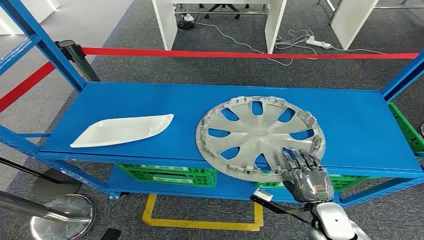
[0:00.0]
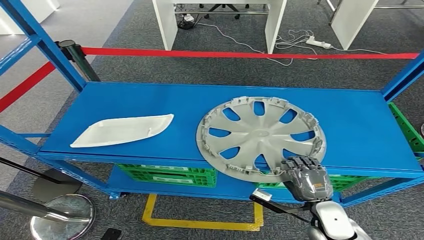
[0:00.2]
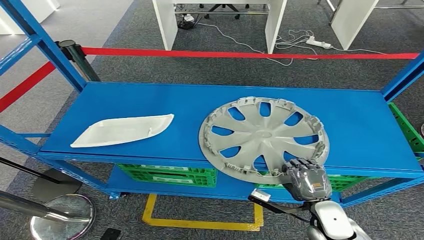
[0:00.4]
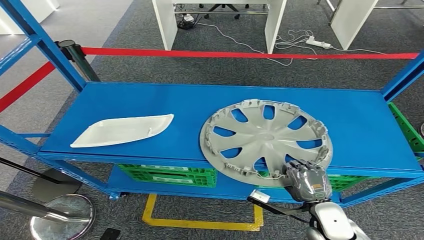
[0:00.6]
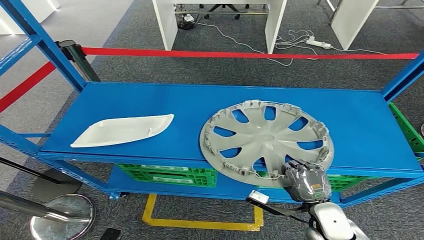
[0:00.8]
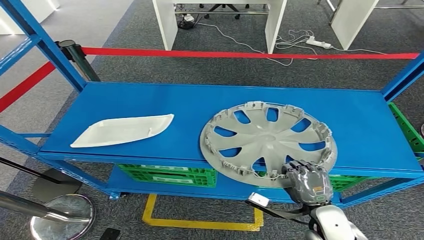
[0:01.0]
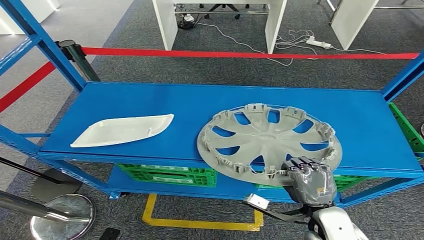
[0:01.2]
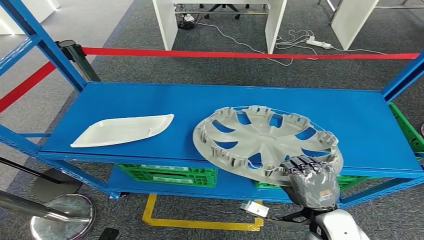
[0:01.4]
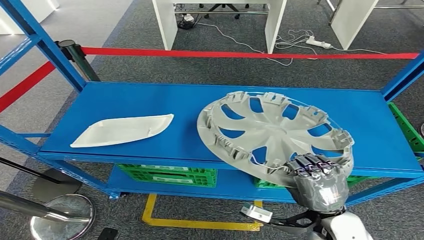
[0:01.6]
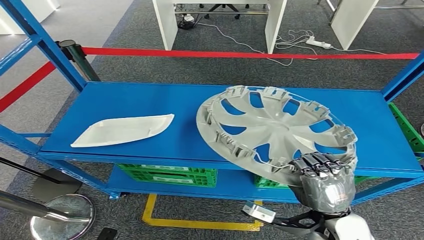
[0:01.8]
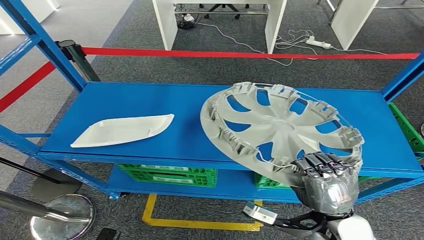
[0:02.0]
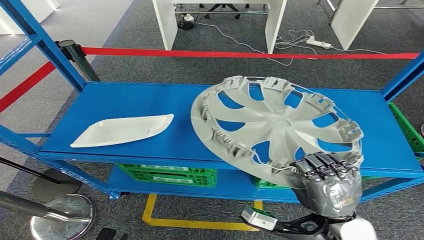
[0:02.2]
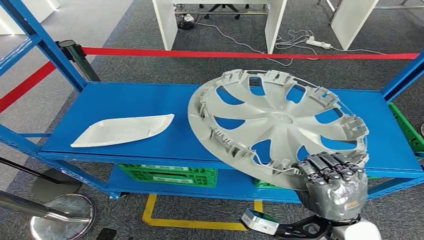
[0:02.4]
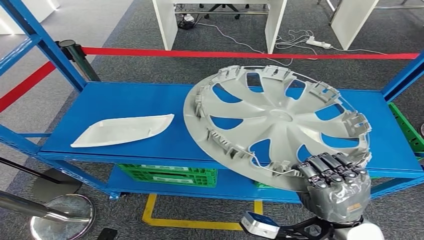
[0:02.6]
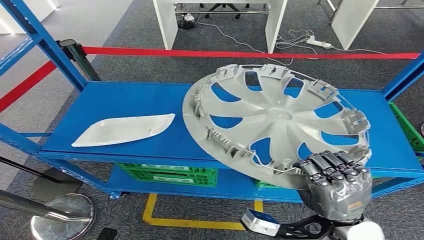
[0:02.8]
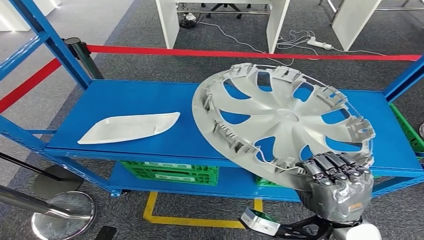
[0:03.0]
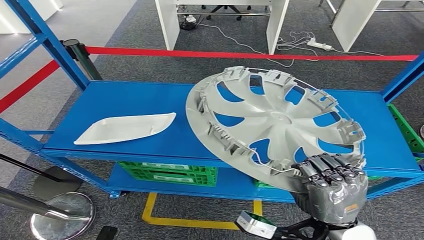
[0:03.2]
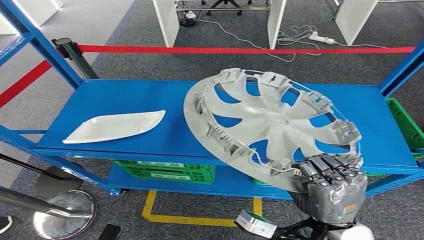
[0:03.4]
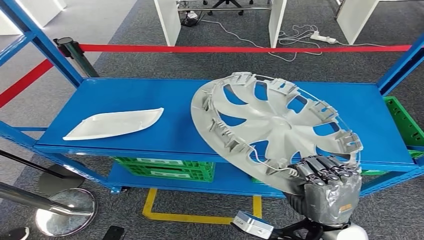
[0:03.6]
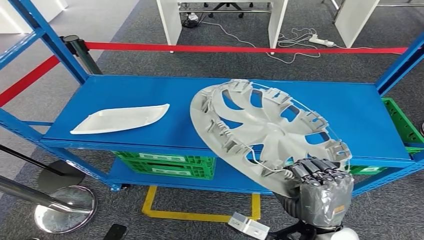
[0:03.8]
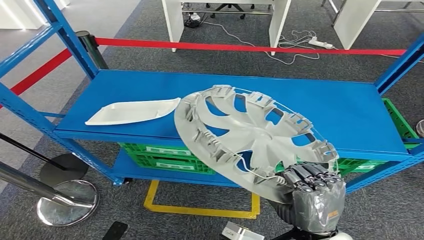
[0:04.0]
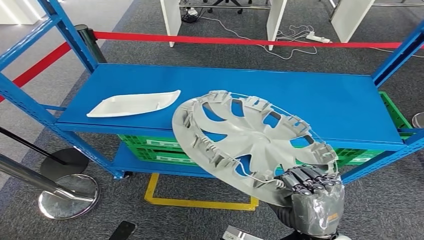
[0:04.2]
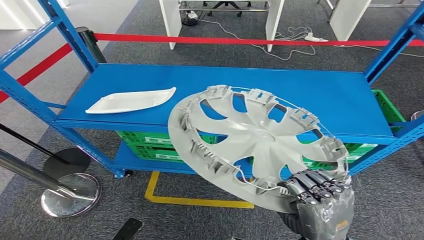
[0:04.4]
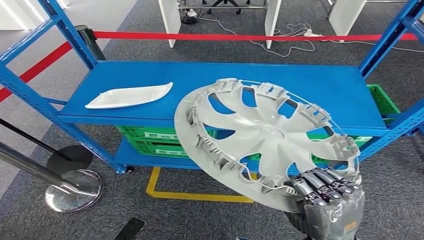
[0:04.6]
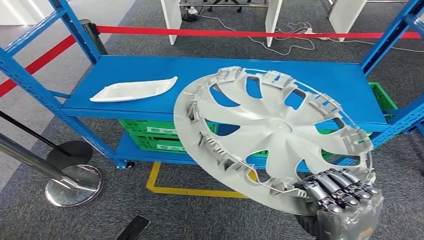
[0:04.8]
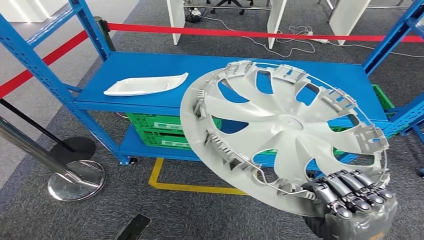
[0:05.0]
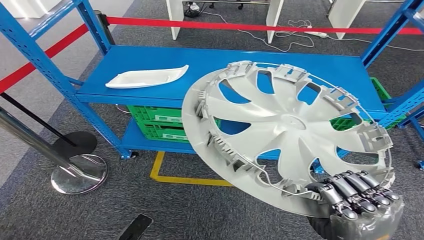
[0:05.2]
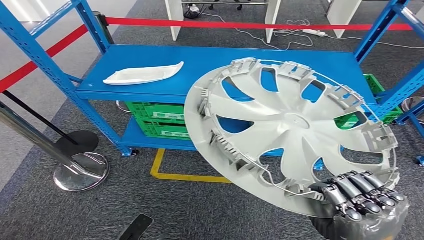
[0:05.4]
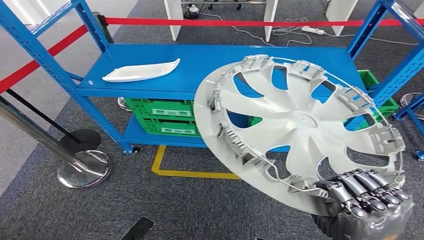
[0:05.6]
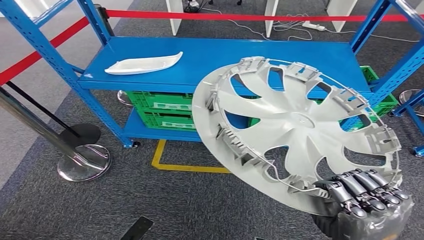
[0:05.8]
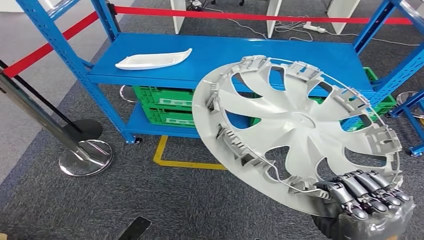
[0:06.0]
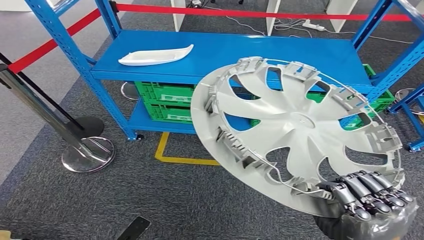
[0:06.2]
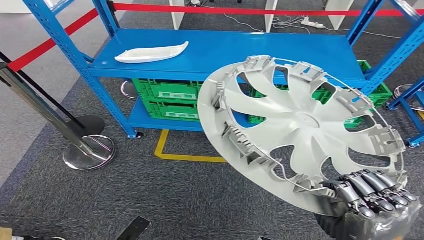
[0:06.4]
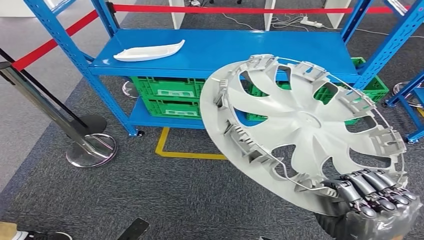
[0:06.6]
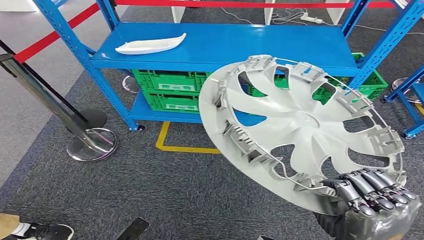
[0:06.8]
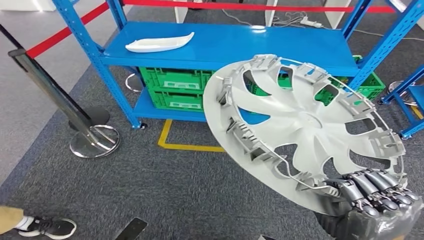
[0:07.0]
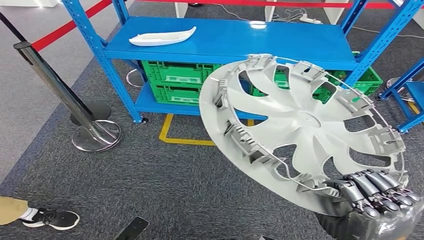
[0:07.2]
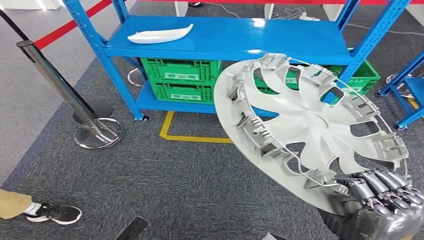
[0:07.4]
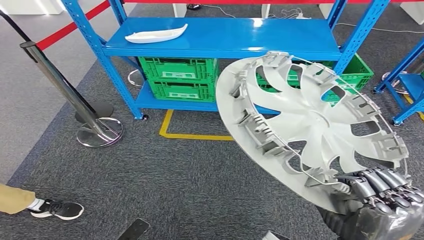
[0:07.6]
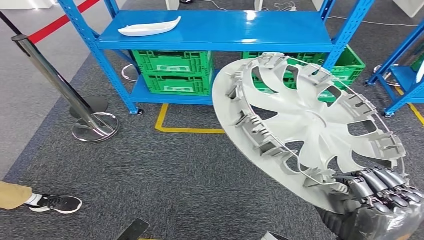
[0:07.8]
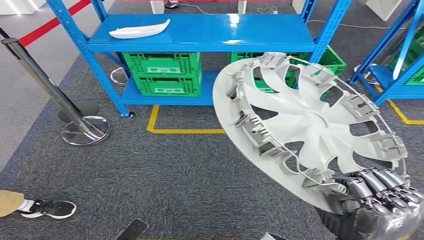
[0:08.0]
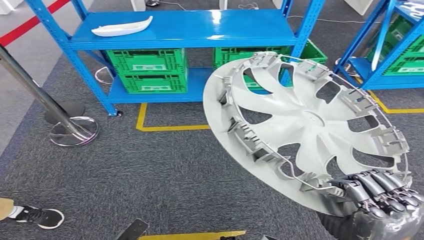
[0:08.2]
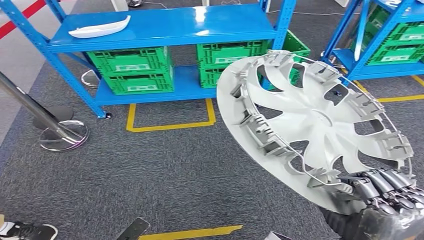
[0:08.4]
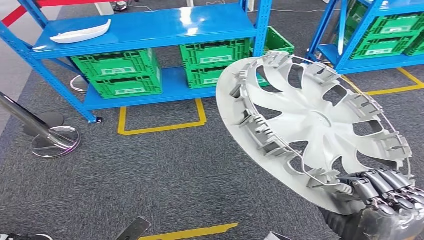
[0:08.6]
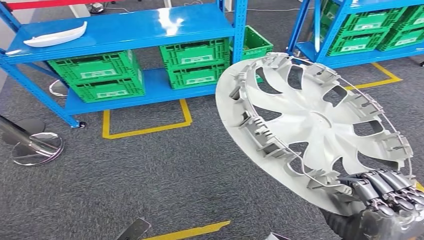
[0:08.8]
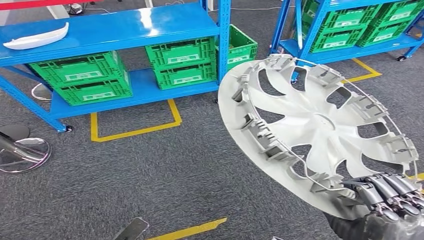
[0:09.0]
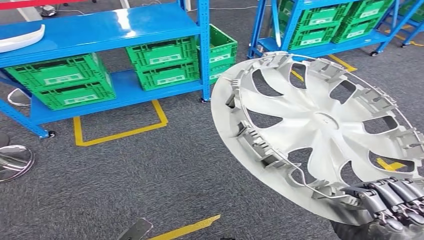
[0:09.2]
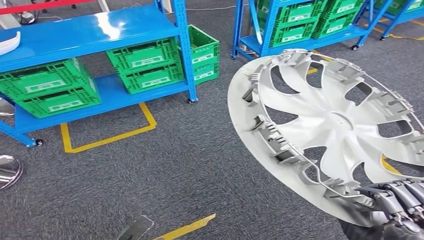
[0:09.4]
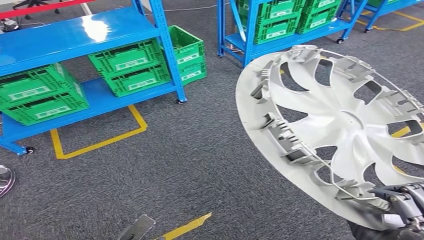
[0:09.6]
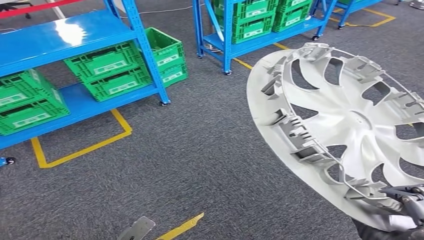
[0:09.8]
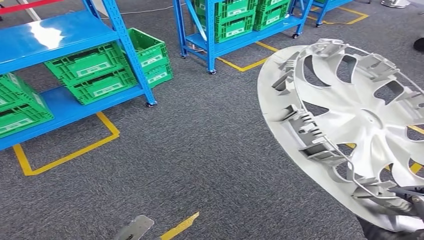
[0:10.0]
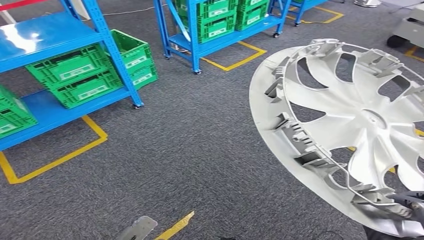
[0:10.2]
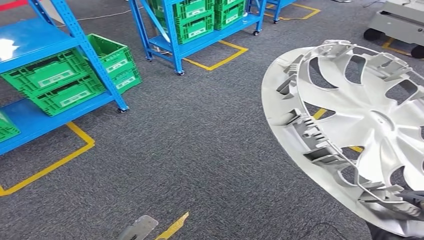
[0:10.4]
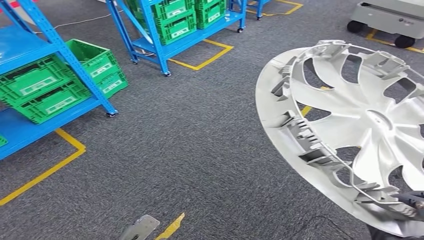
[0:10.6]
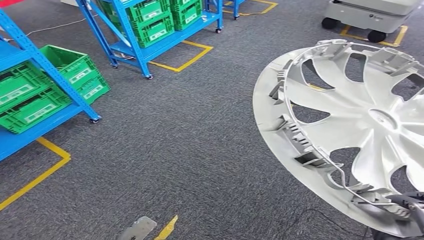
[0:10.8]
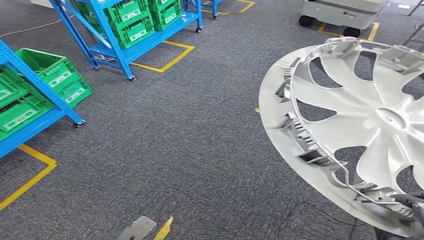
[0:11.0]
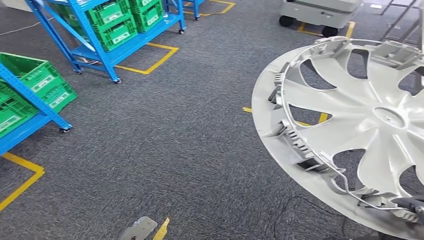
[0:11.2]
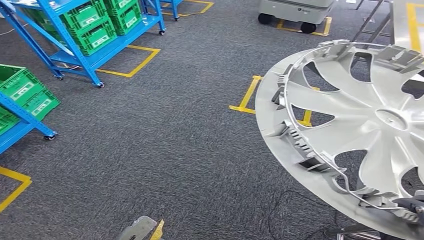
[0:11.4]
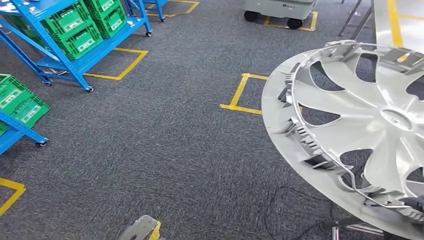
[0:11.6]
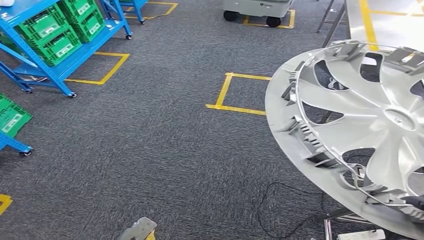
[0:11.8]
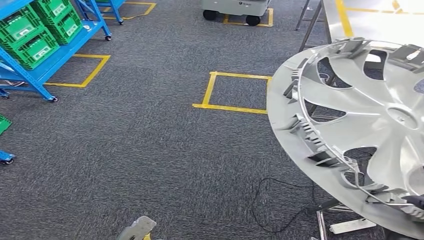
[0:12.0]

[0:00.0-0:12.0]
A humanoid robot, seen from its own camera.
Step, 0:00.0 to 0:04.4: Pick up the small component from the shelf.

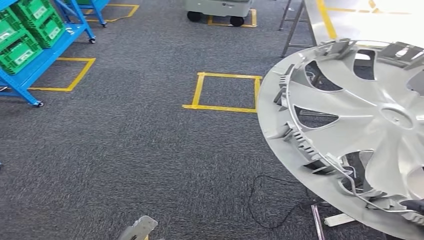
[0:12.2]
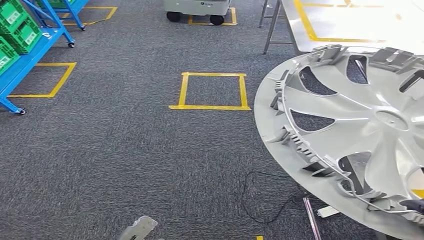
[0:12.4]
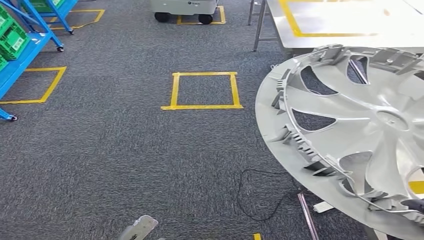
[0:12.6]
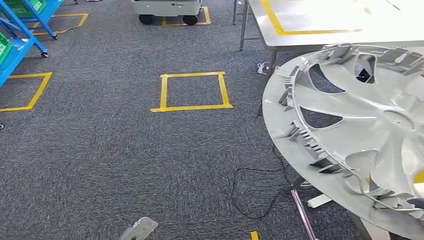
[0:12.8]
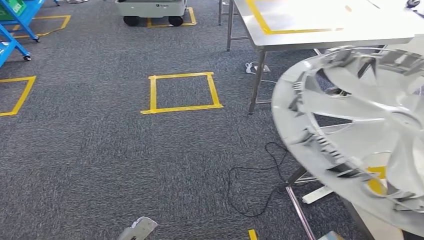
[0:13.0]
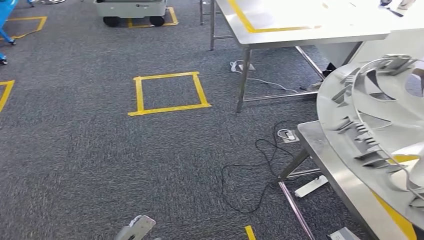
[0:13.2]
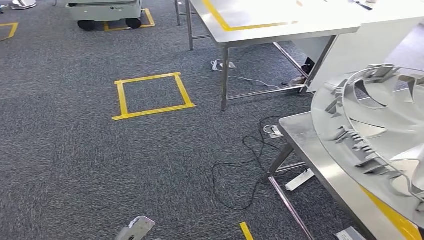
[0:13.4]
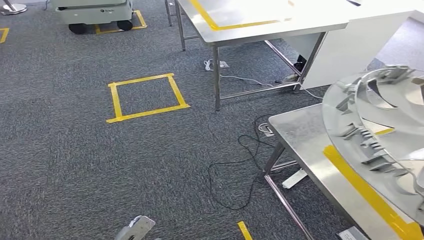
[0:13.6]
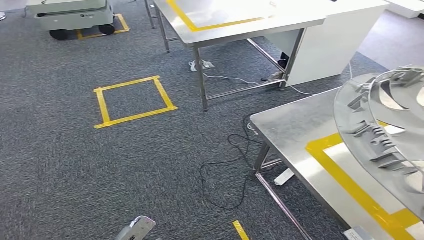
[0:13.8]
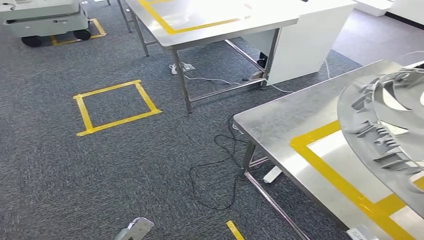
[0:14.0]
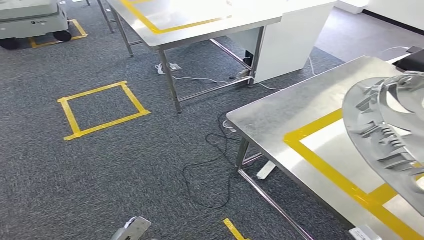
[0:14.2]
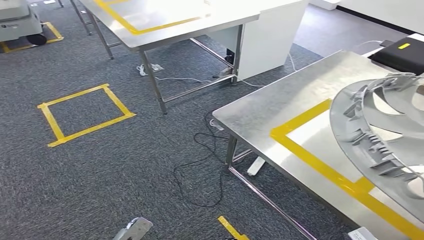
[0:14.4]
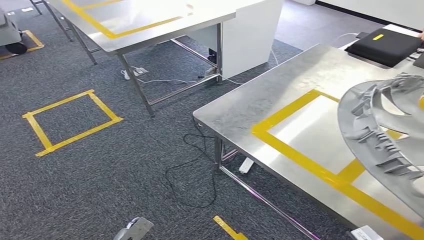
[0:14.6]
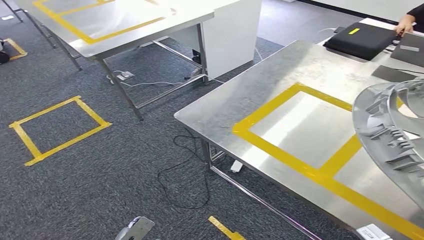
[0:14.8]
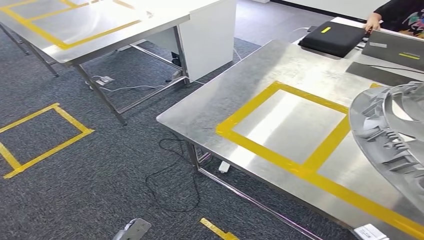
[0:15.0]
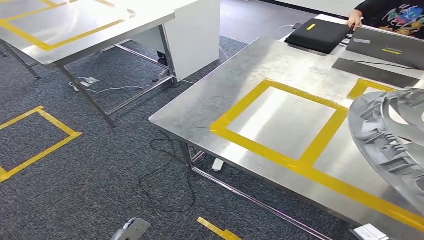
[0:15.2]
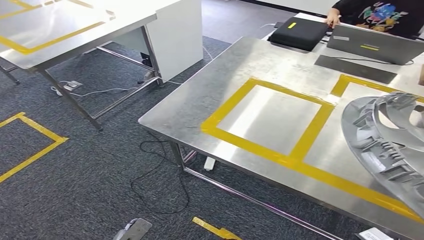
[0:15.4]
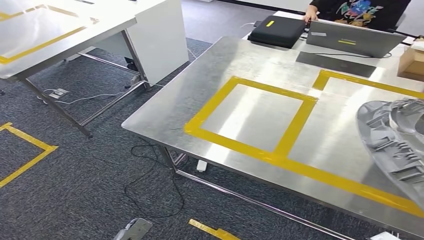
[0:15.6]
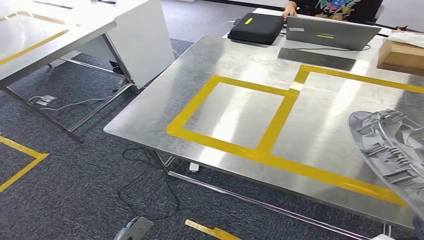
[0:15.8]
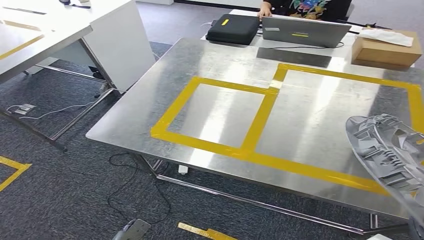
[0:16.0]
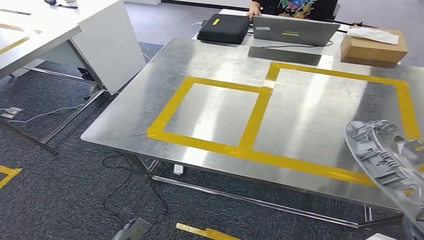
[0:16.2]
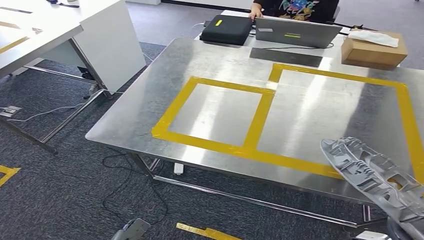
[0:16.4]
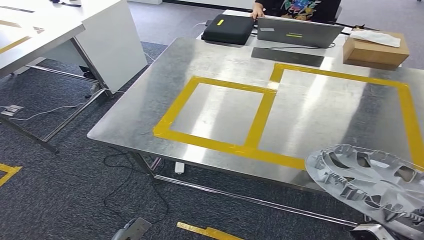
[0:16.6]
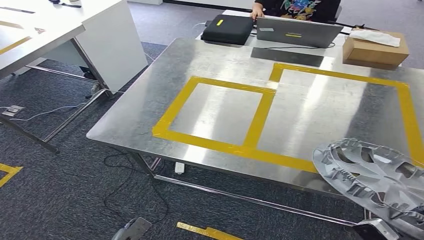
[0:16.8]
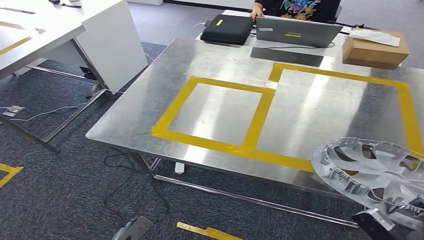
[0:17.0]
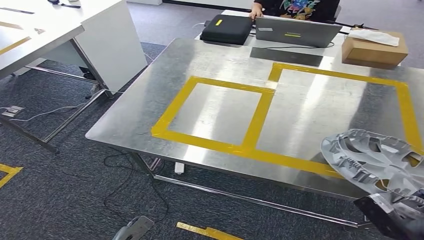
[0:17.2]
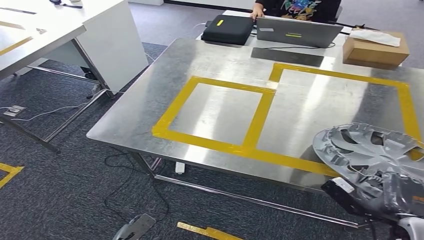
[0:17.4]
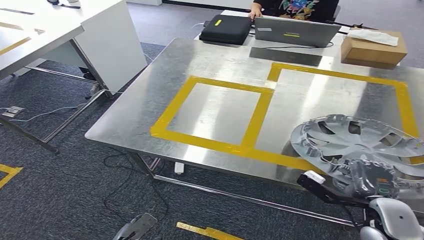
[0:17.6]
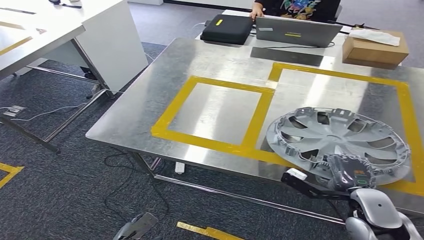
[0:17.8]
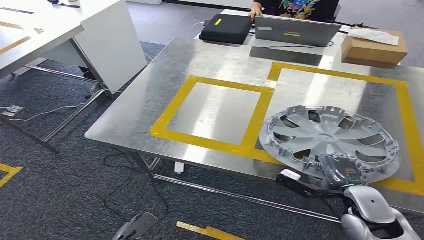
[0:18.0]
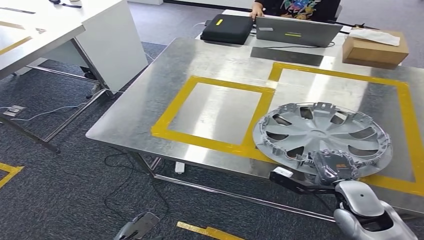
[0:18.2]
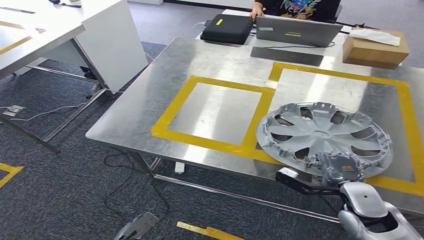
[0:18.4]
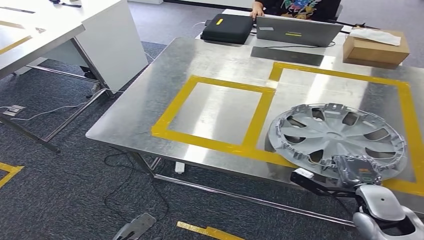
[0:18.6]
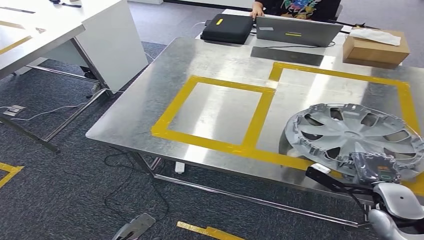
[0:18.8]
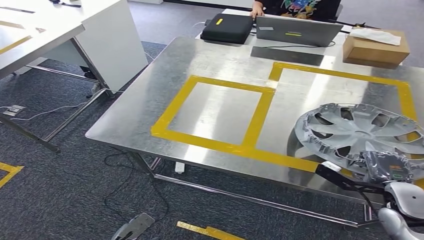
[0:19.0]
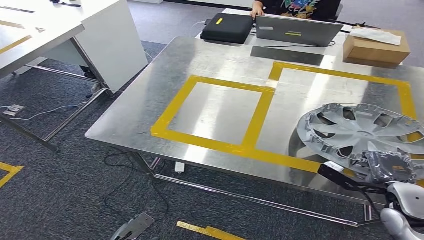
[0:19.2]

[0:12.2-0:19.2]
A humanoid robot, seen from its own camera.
Step, 0:12.2 to 0:15.8: Bring the small component to the front of the workbench.
0:16.4 to 0:17.8: The right hand goes about 20 cm forward.
0:17.8 to 0:19.2: The right hand heads to the right, covering about 10 cm.
